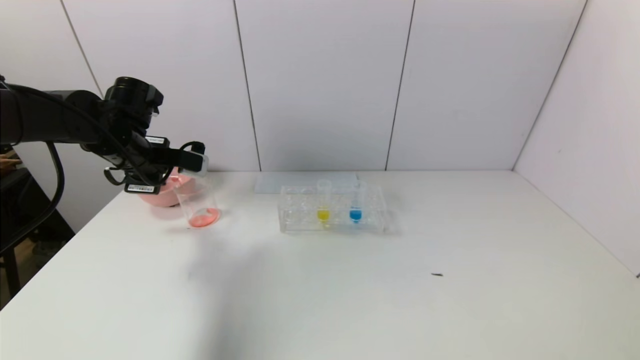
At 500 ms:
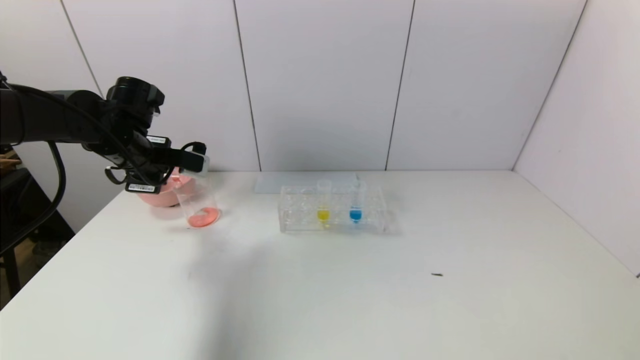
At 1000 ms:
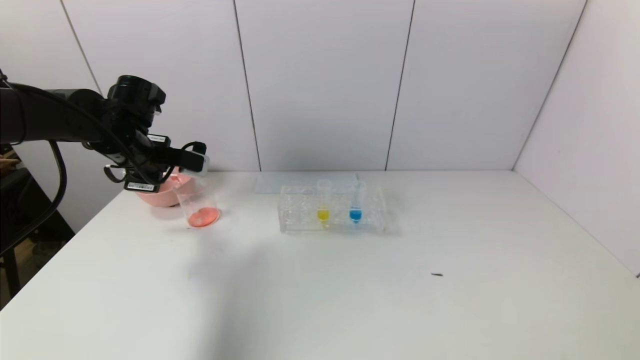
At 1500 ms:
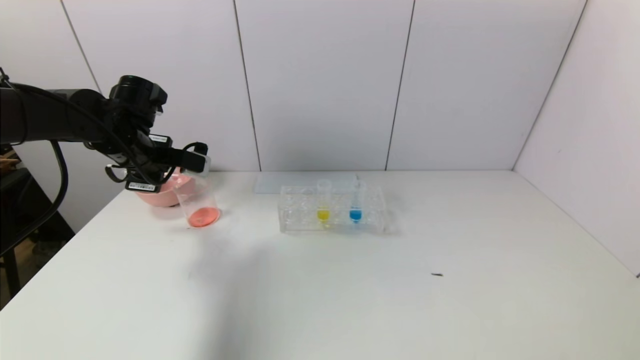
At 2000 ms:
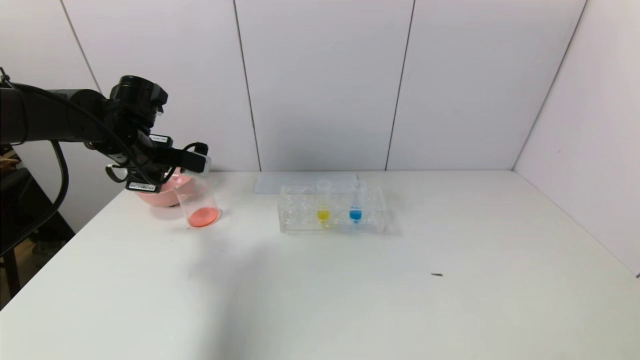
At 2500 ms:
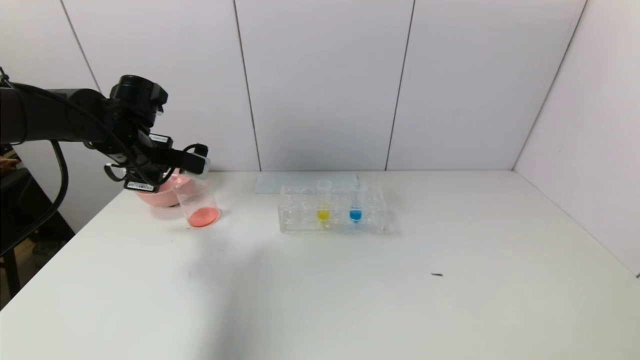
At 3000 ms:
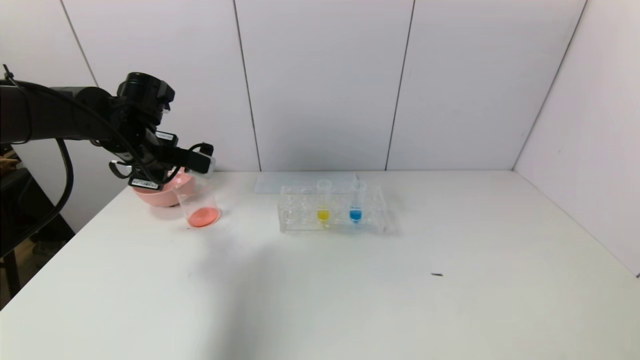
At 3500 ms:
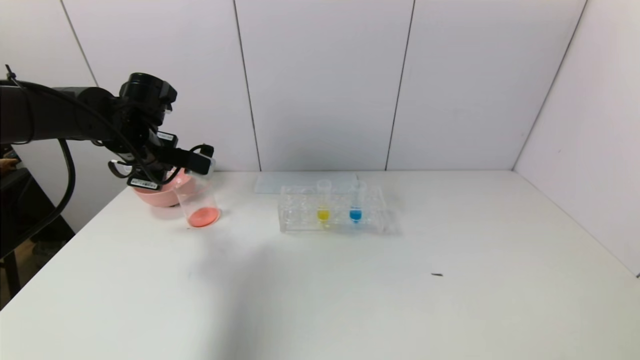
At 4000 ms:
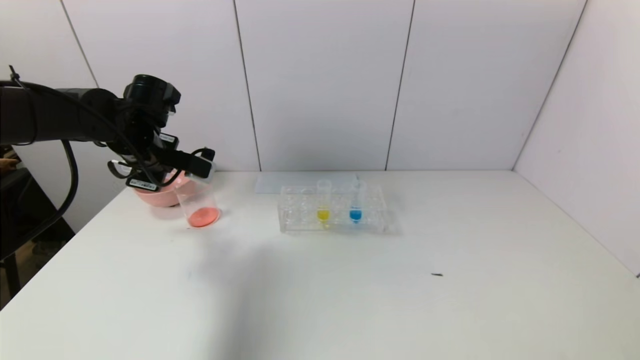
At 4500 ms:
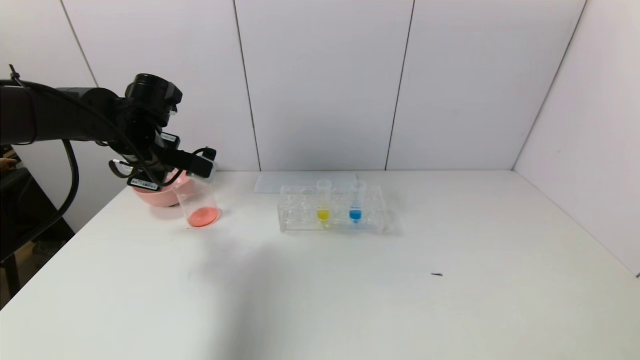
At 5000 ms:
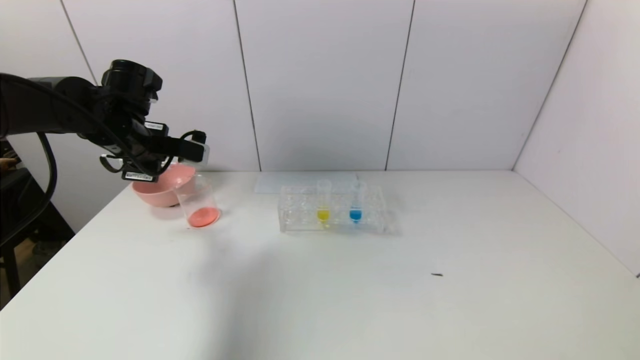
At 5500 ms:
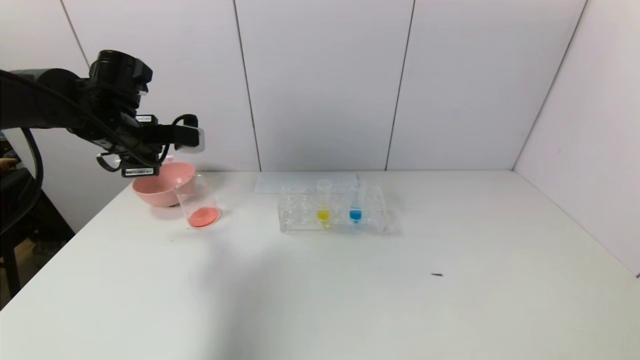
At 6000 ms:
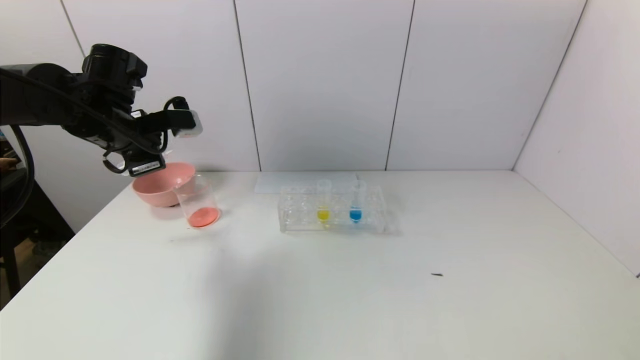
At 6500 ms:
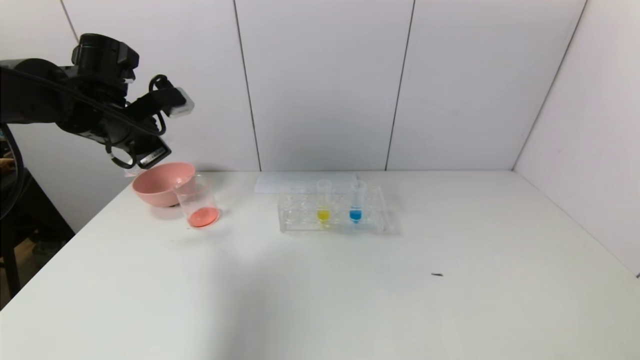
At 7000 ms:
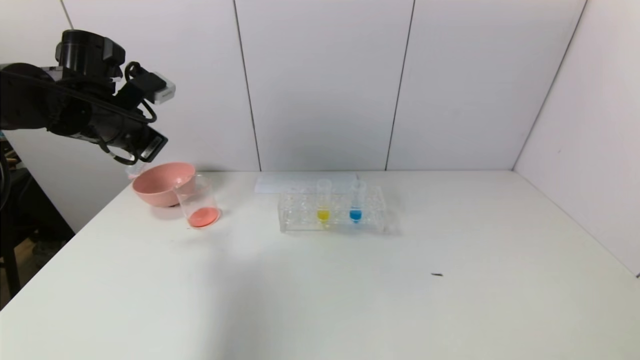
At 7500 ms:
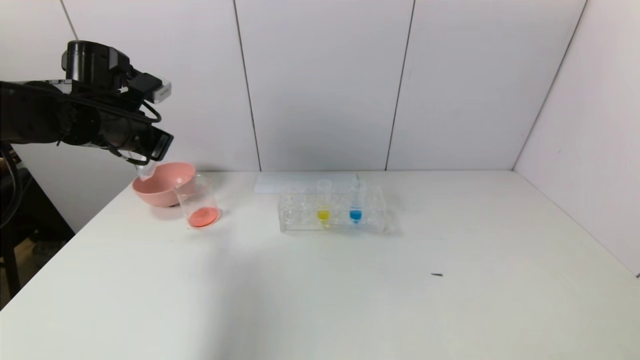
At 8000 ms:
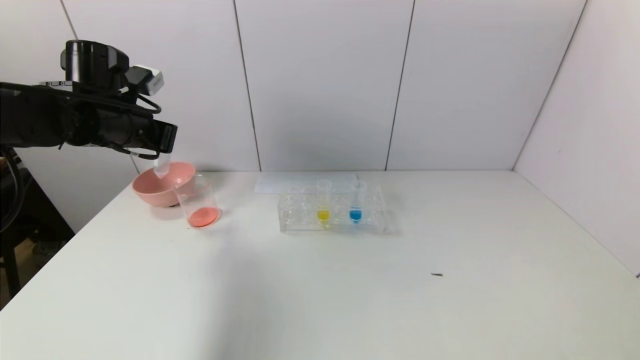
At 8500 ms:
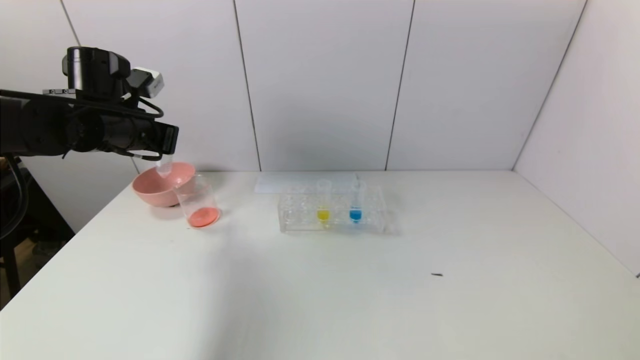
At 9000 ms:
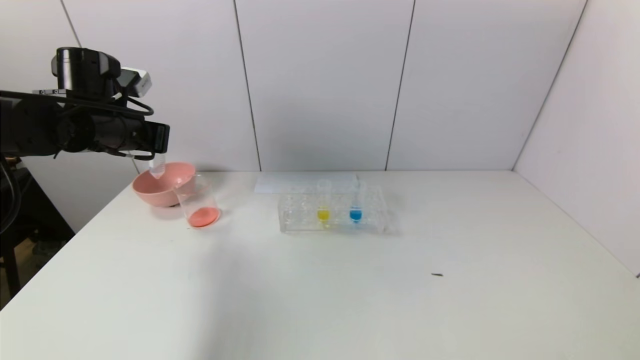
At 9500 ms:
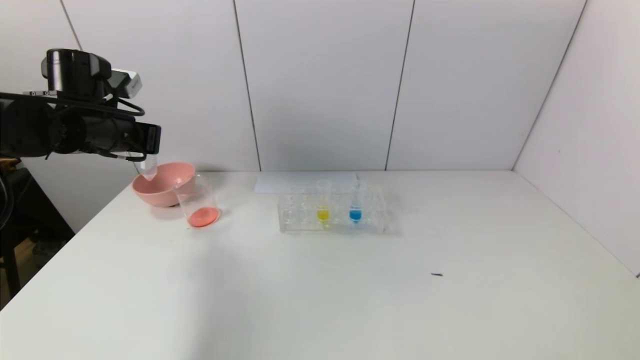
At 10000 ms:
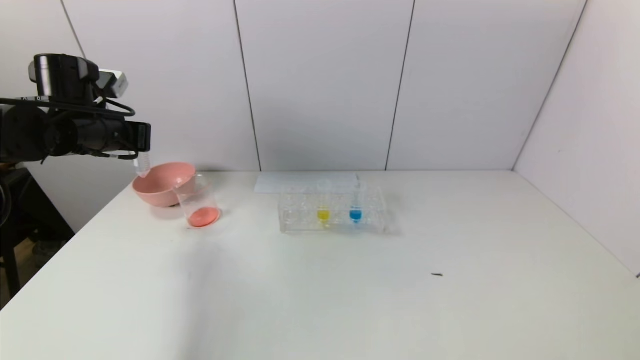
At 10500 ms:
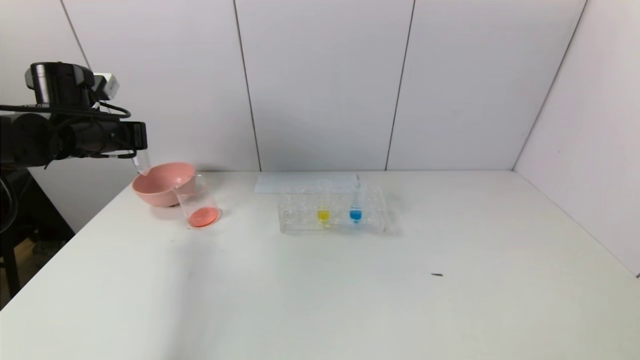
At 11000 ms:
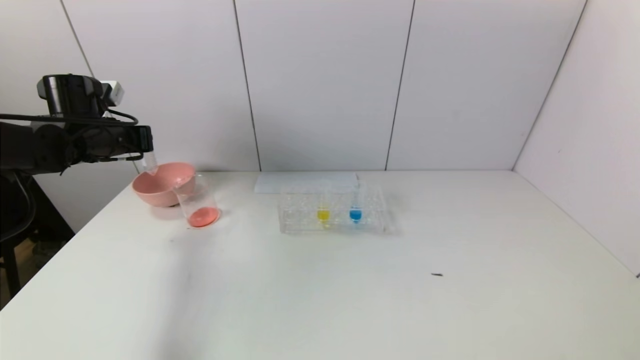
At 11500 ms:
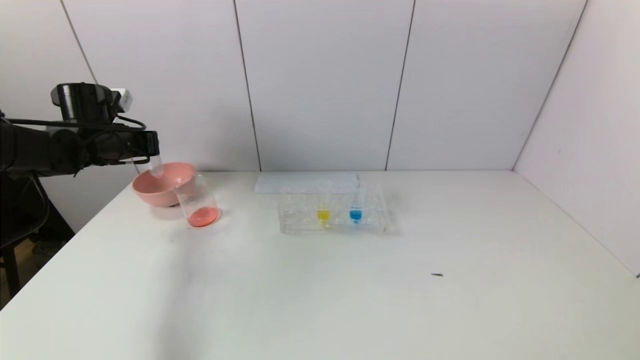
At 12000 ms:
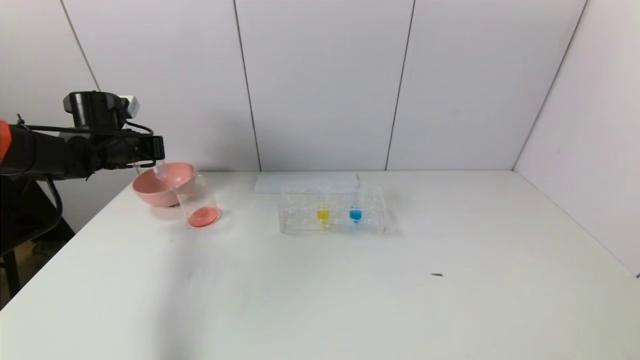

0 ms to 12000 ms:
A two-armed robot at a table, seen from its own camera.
Task of the whole recording: pick up the test tube with yellow pigment and the test tube with red pigment by grippers and pour them into the beaker.
0 ms to 2000 ms: Neither gripper changes place.
2000 ms to 4000 ms: The grippers make only small movements.
8000 ms to 10000 ms: The grippers make only small movements.
10000 ms to 12000 ms: The left gripper heads forward and downward, covering some 10 cm.

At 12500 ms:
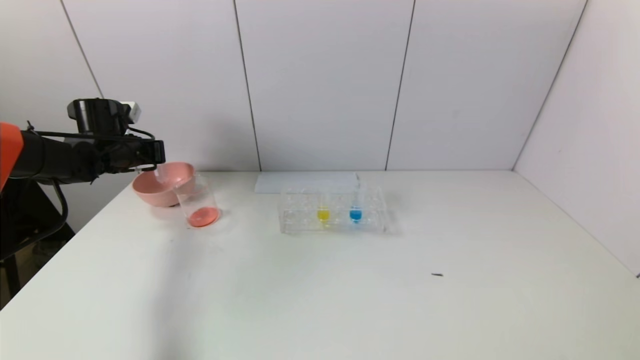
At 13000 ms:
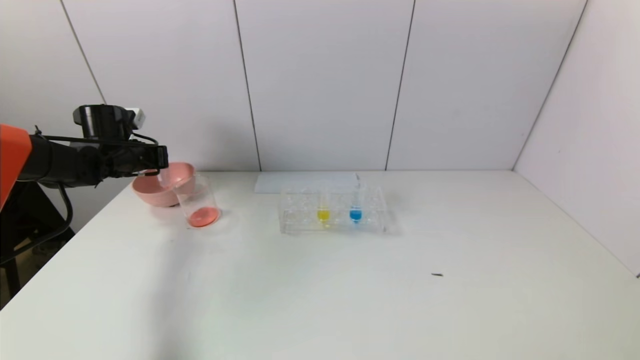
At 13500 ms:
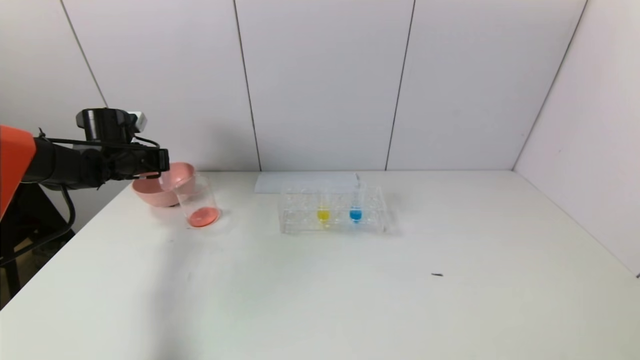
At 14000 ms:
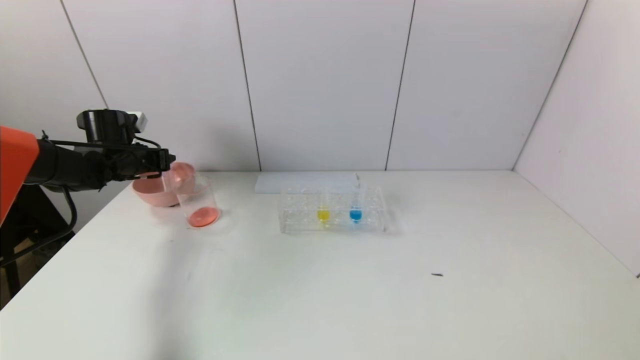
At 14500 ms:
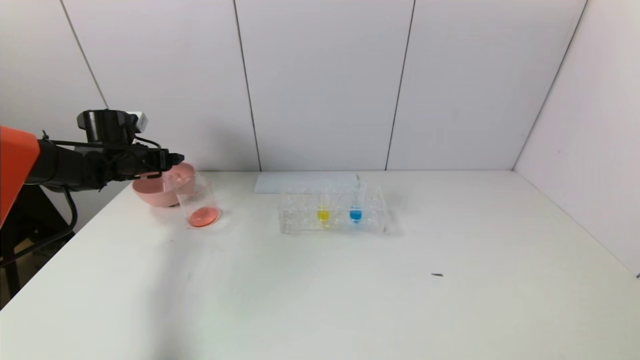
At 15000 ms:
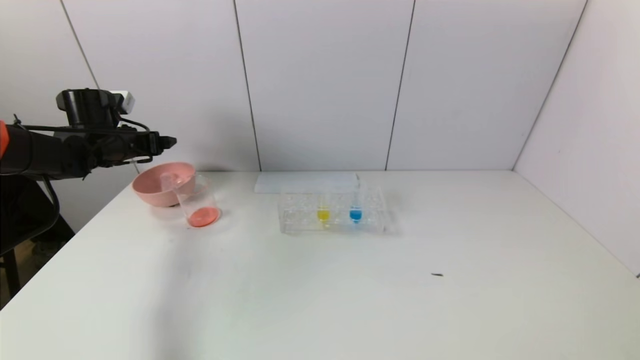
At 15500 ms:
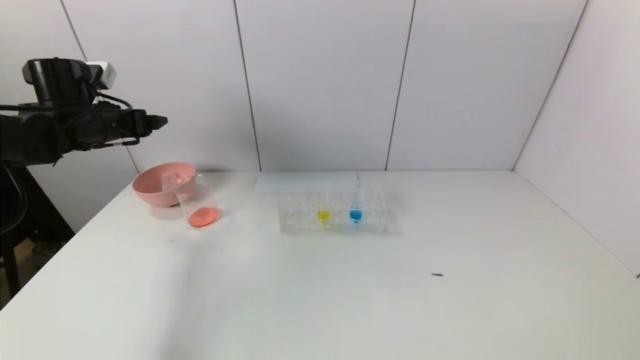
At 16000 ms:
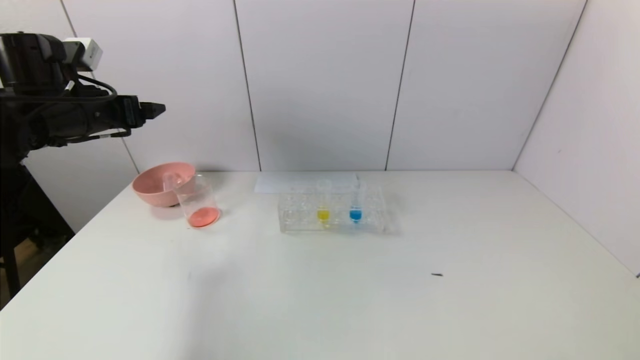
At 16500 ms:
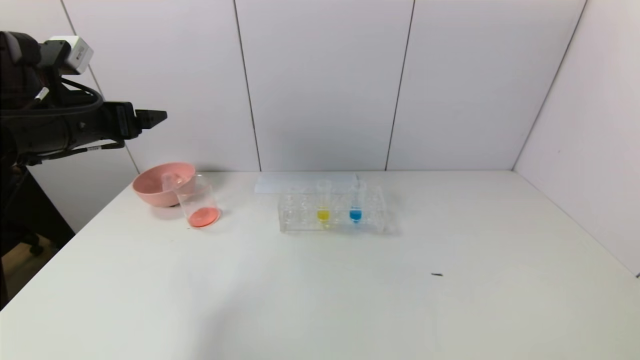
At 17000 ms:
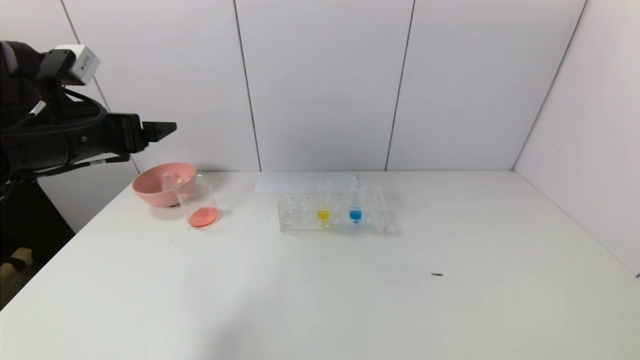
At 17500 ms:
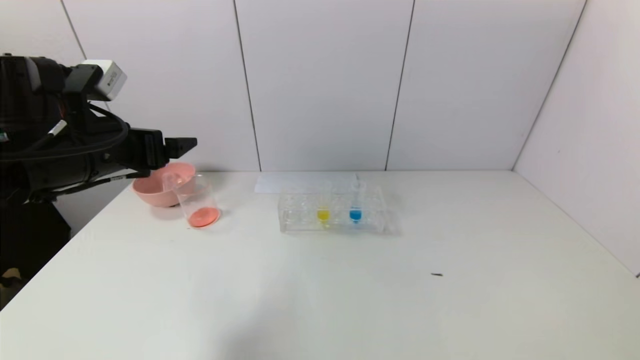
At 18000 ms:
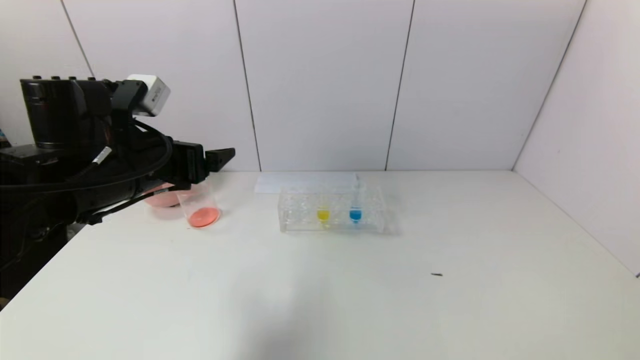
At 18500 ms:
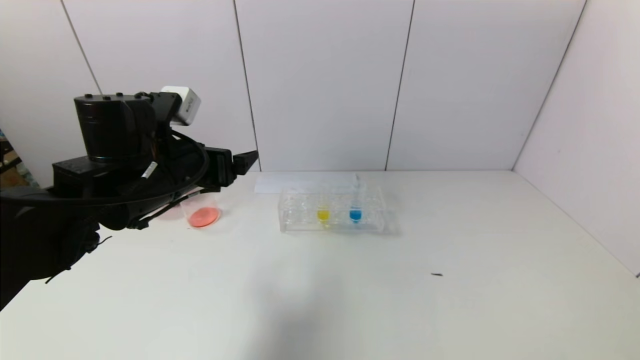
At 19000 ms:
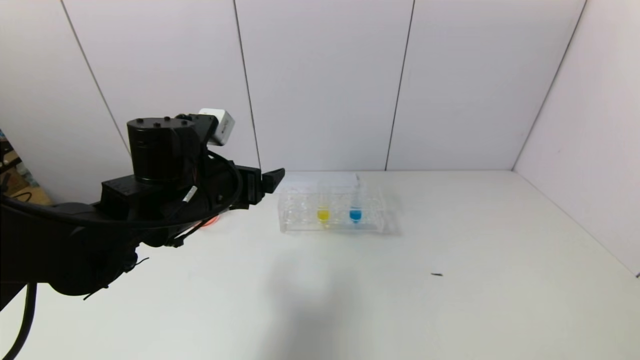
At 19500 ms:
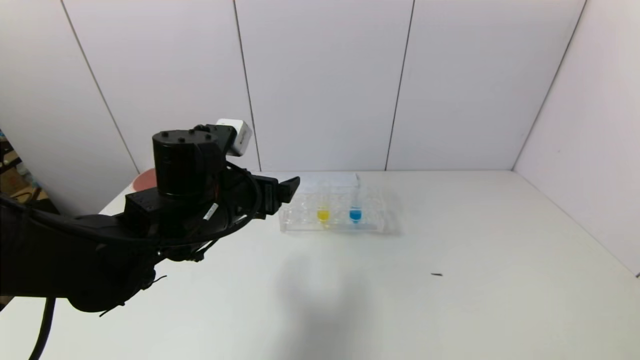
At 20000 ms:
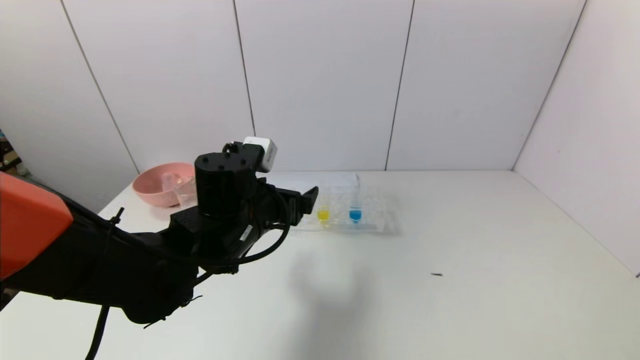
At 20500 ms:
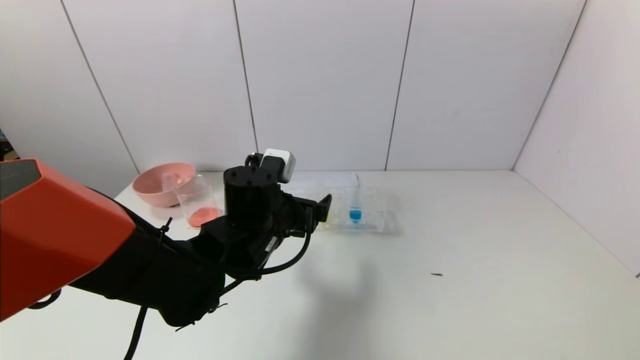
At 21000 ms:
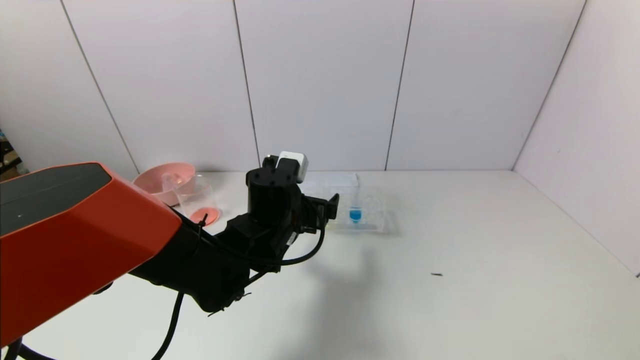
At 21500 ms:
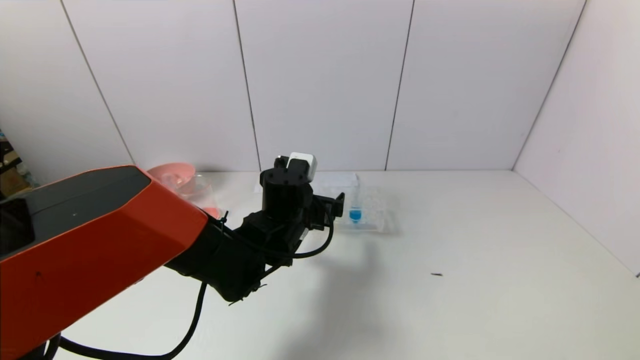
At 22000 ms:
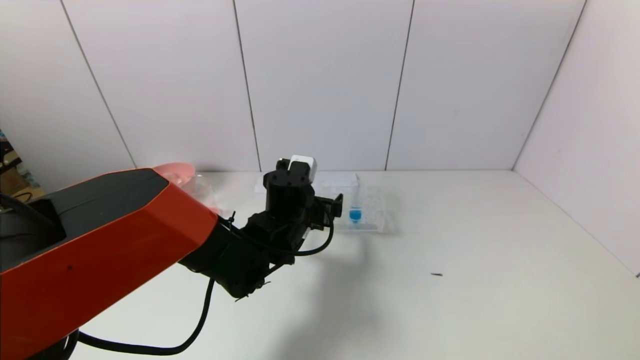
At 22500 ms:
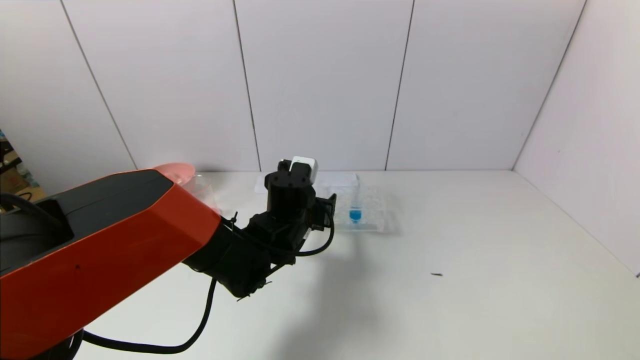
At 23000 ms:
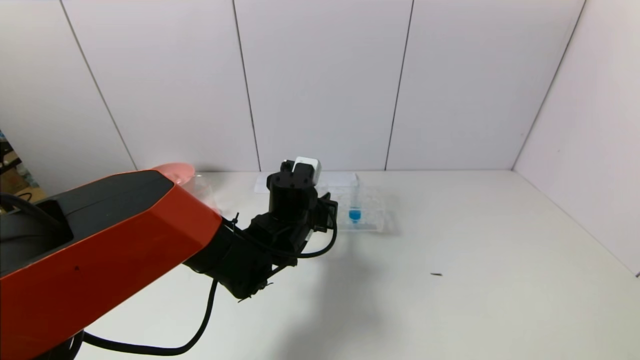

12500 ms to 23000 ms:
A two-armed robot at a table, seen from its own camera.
Task of the whole recording: pick up the test tube with yellow pigment and the test tube with red pigment by grippers and pour them into the beaker.
Step, 14500 ms to 23000 ms: Grasp the yellow reagent with the left gripper.
12500 ms to 14500 ms: The left gripper opens.
14500 ms to 16500 ms: The left gripper travels backward, upward and to the right by approximately 20 cm.
16500 ms to 19000 ms: The left gripper heads to the right and downward, covering roughly 15 cm.
19000 ms to 21000 ms: The left gripper shifts about 10 cm to the right and downward.
21000 ms to 23000 ms: The left gripper closes its fingers.
